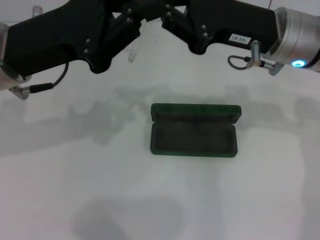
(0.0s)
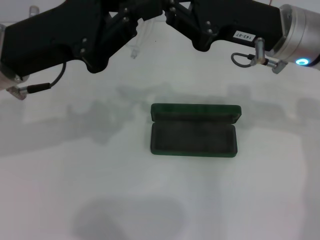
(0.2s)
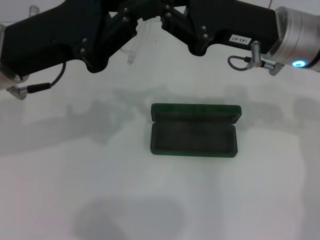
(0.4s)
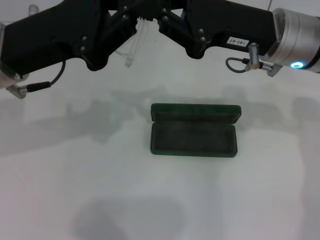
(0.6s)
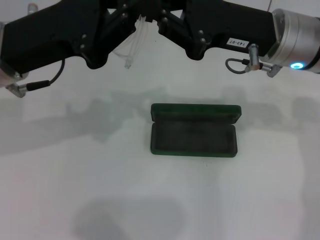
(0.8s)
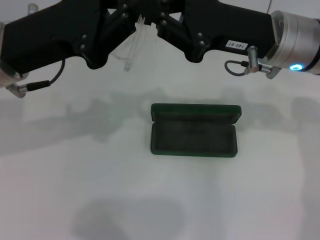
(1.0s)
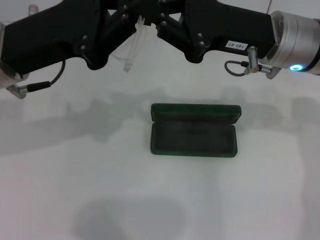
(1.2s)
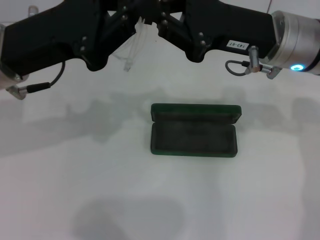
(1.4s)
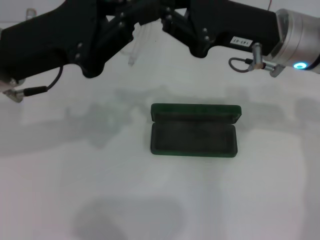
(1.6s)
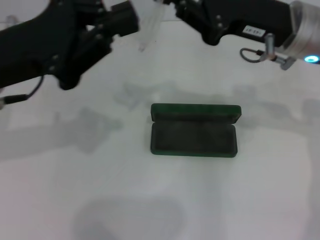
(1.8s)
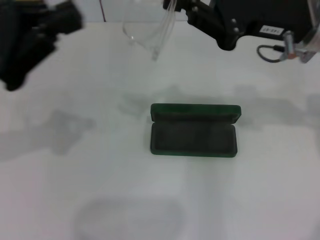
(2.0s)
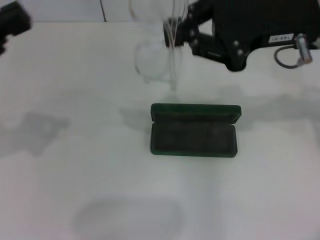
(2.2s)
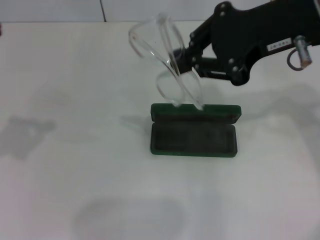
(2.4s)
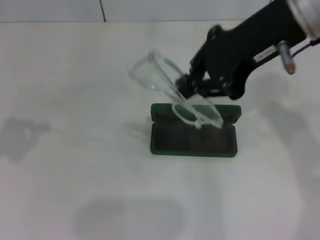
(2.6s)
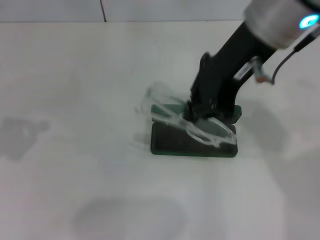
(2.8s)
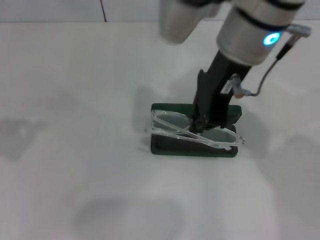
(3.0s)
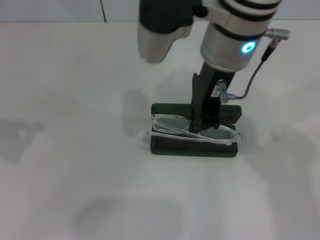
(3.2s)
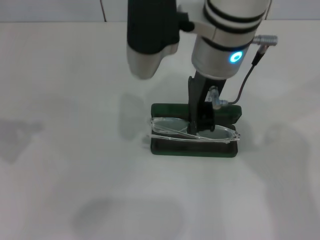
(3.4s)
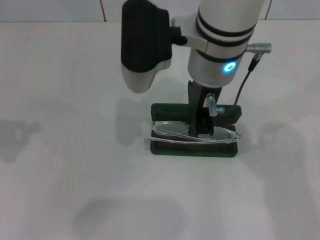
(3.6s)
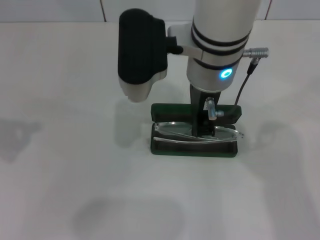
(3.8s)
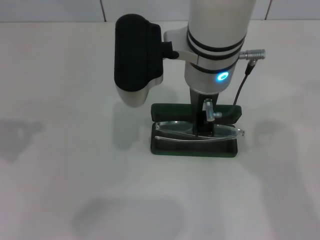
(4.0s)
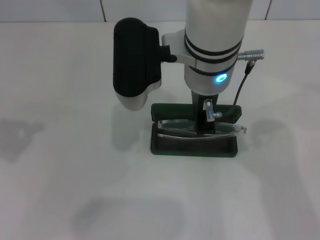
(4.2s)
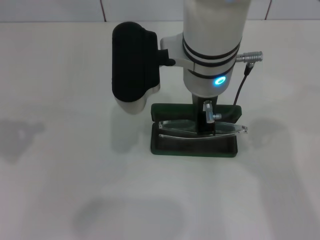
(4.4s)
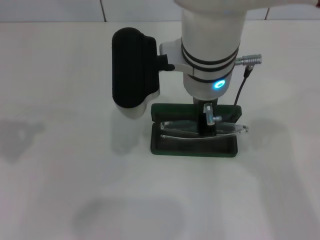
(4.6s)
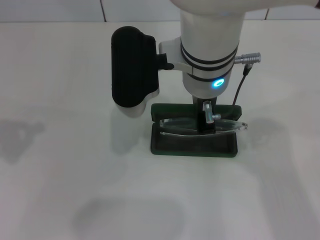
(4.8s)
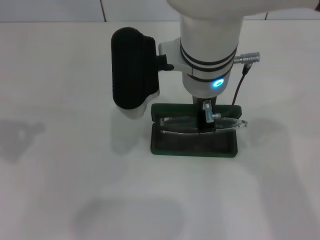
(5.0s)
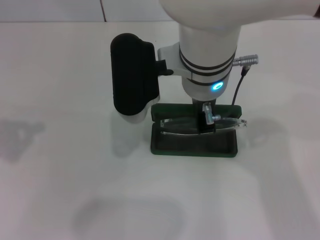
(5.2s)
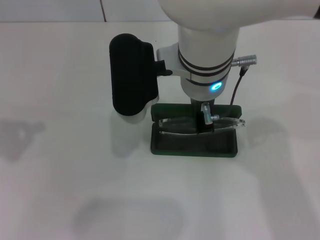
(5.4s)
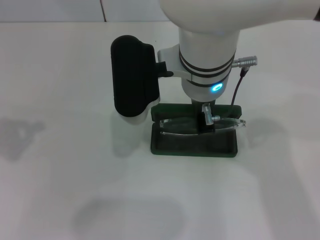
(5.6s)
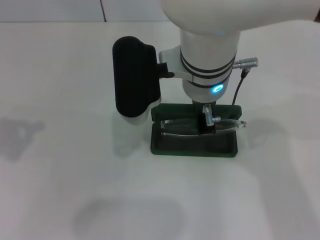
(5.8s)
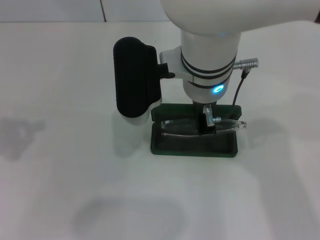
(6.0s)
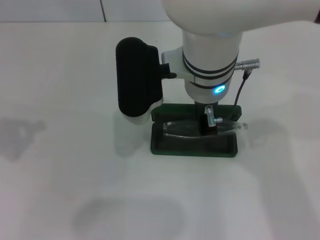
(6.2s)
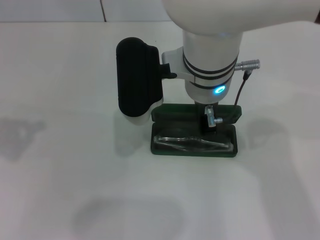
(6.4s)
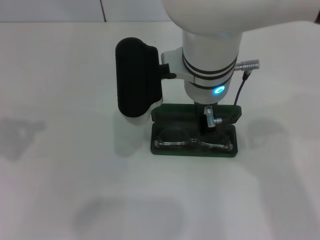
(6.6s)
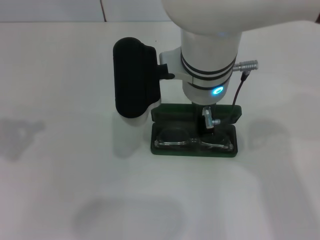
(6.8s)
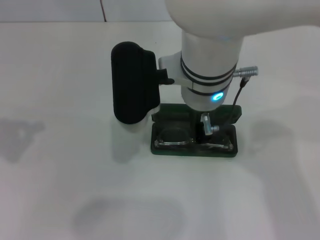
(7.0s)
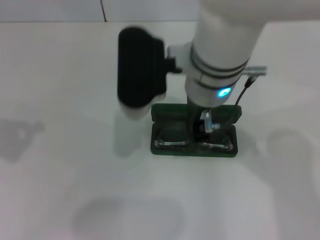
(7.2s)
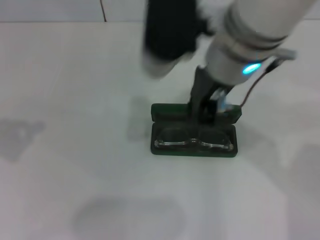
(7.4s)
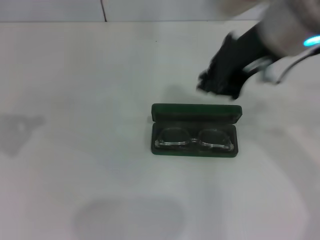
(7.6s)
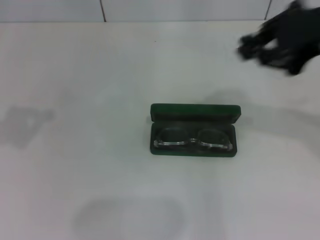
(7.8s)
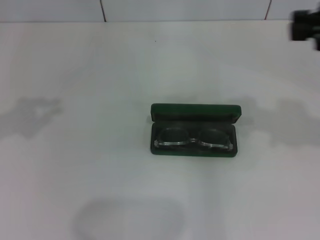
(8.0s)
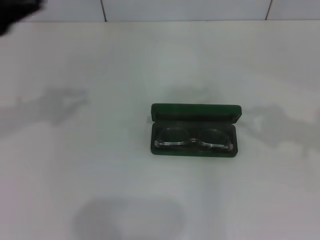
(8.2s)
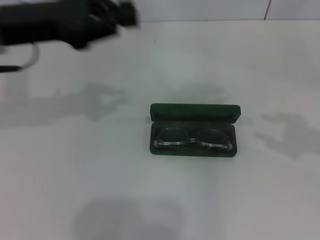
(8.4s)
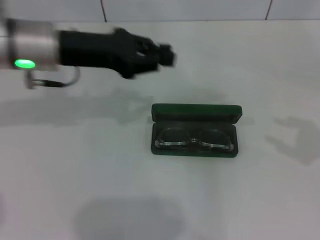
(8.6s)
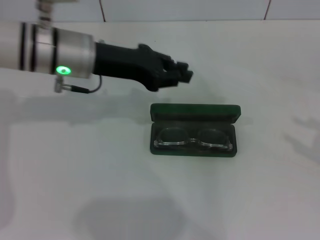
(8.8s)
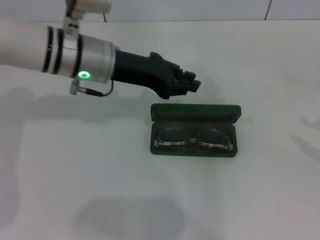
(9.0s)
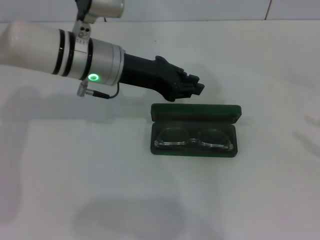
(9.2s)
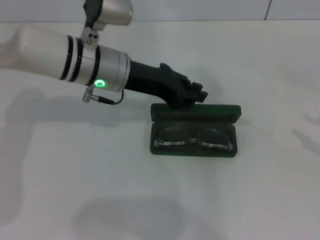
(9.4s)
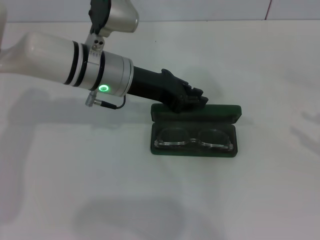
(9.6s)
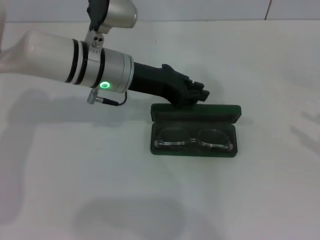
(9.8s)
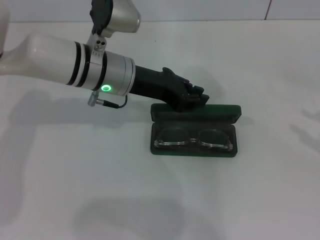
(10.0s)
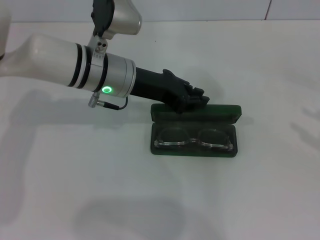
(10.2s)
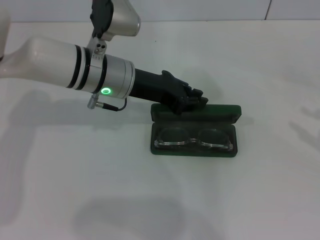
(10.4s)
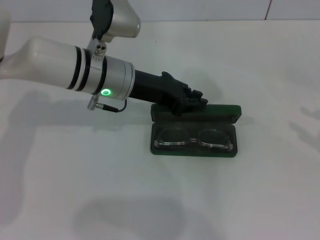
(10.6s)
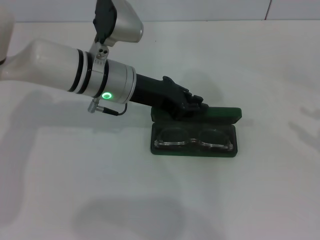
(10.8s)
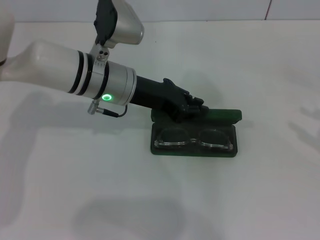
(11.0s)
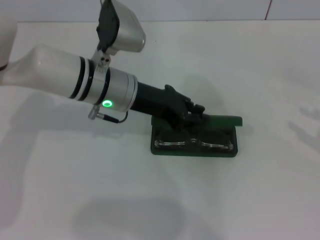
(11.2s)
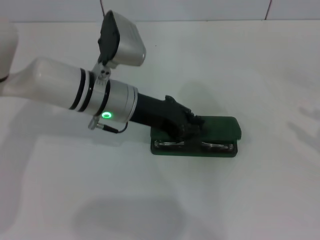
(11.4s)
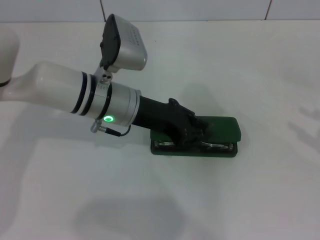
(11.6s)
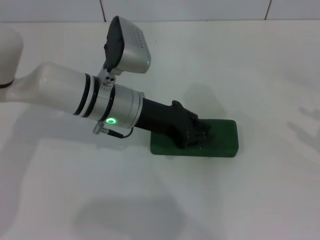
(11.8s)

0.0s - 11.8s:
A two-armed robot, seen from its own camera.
Step, 0.2s - 6.6s: Put the glasses into the case with your right hand.
0.0s - 1.4s: Neither gripper changes place.
1.4s - 3.0s: The right gripper travels to the left and upward by some 10 cm. Meanwhile the left gripper is displaced to the left and backward by some 15 cm.
3.0s - 4.4s: The right gripper is displaced to the left and downward by about 5 cm.
4.4s - 6.0s: The grippers make only small movements.
6.0s - 7.4s: The right gripper changes place by roughly 5 cm.
7.4s - 8.8s: The left gripper shifts some 25 cm to the right and forward; the right gripper goes roughly 35 cm to the right, and opens.
8.8s - 10.4s: The left gripper ends up some 5 cm from where it was.
10.4s - 11.8s: The grippers move only a little.

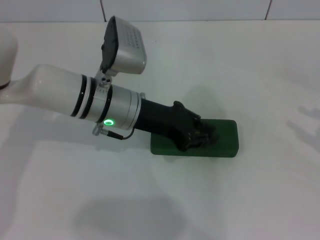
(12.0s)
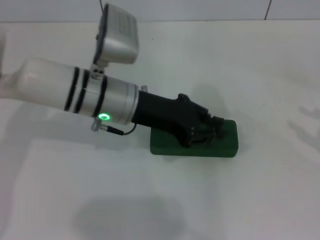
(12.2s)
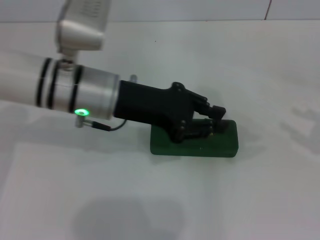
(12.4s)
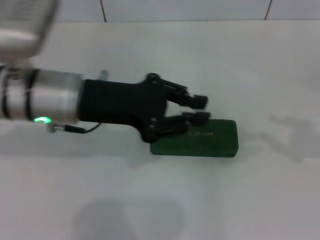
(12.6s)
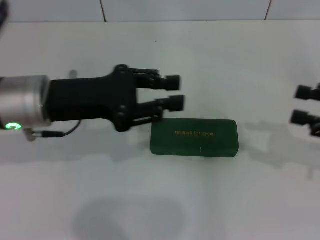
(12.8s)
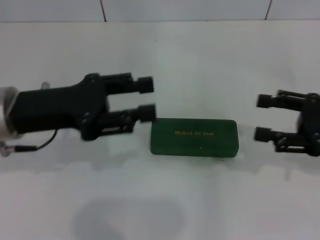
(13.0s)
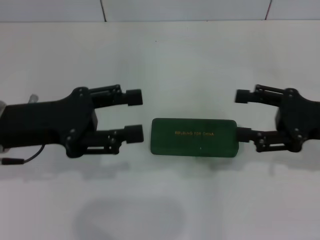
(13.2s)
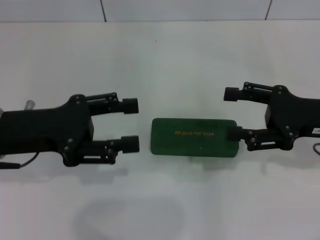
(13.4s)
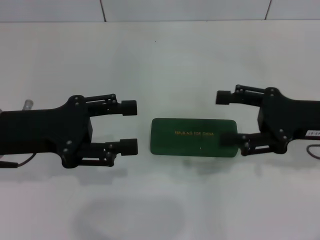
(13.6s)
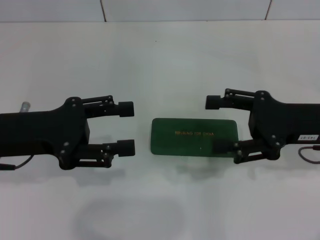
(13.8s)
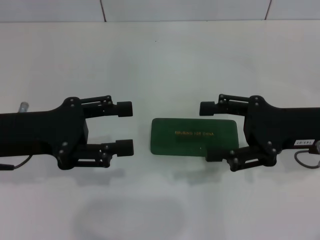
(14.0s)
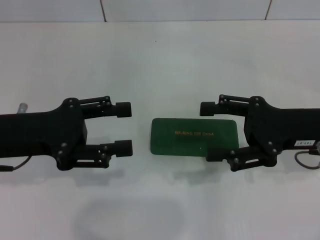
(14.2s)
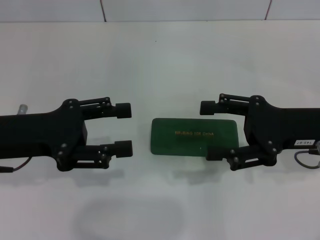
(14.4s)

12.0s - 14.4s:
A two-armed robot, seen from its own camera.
12.0s - 13.2s: The right gripper is displaced to the left by some 15 cm. Meanwhile the left gripper moves to the left and backward, approximately 15 cm, and opens.
13.2s - 14.4s: There are only small adjustments of the grippers.
